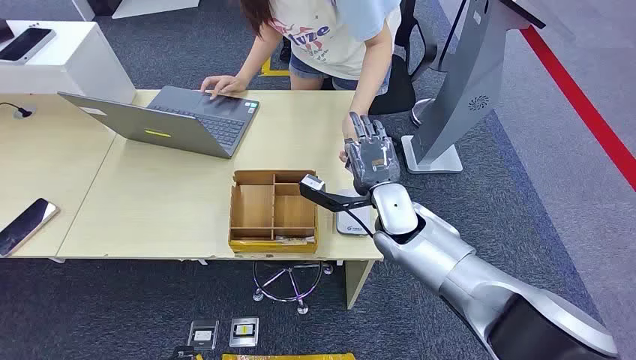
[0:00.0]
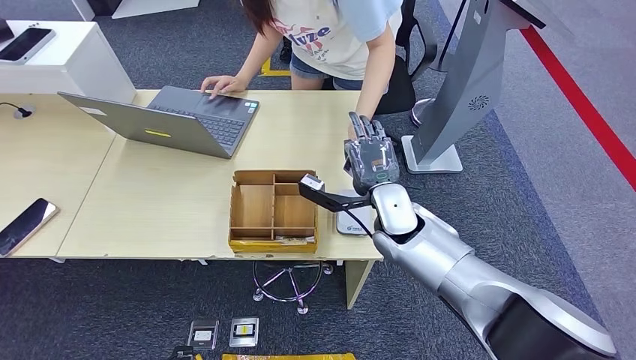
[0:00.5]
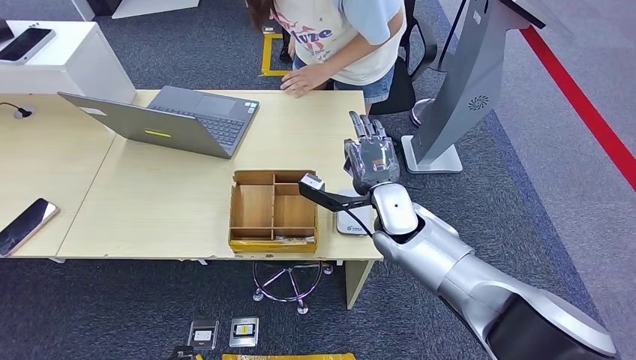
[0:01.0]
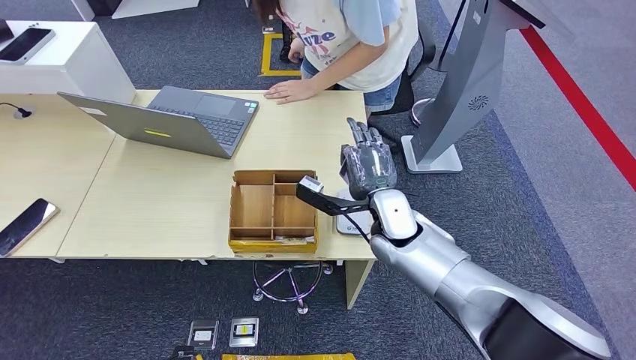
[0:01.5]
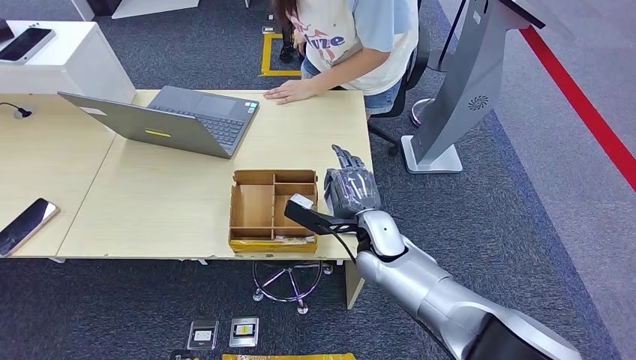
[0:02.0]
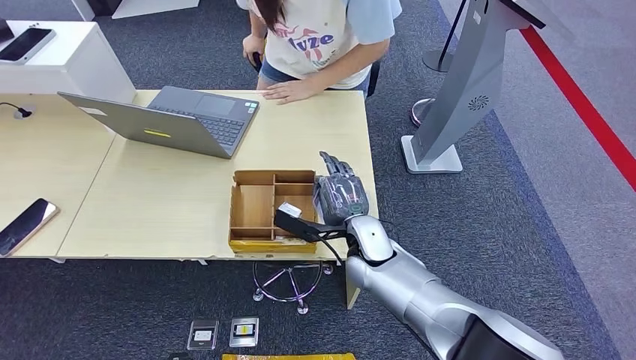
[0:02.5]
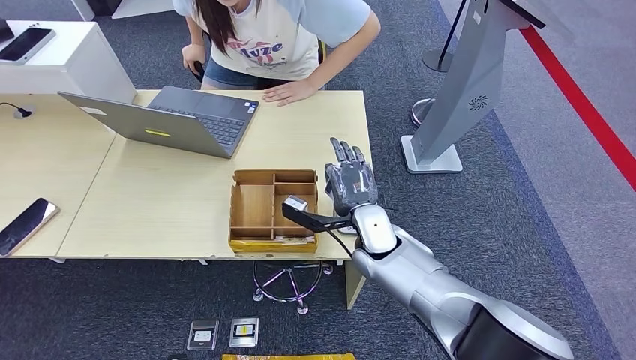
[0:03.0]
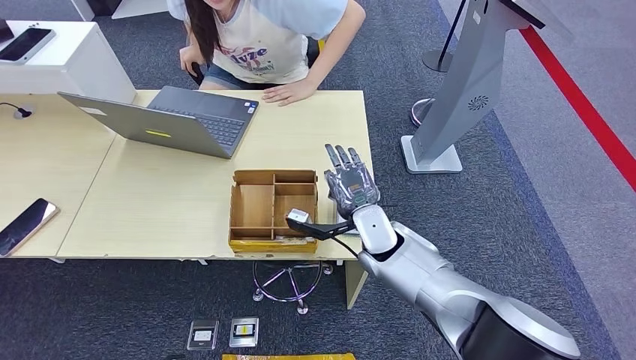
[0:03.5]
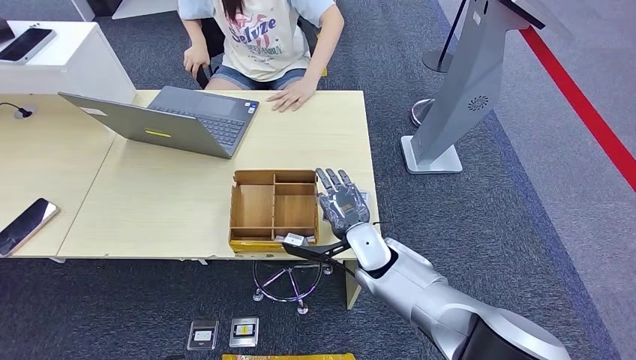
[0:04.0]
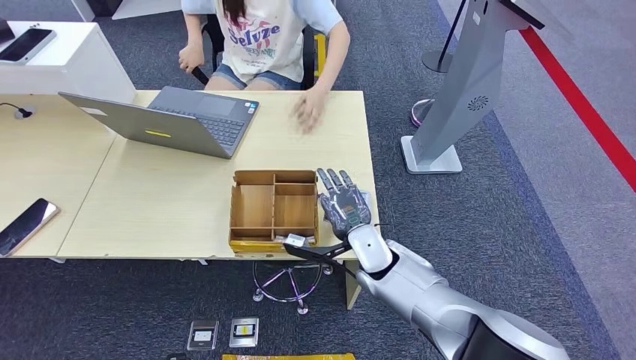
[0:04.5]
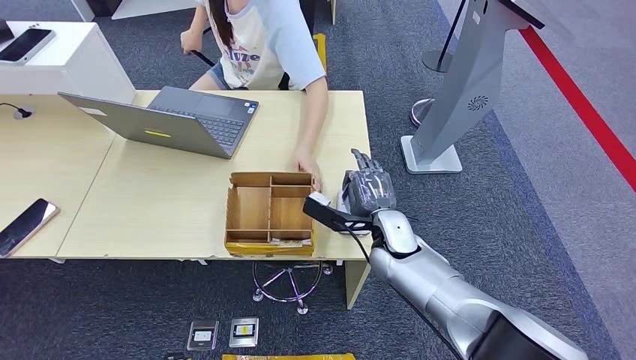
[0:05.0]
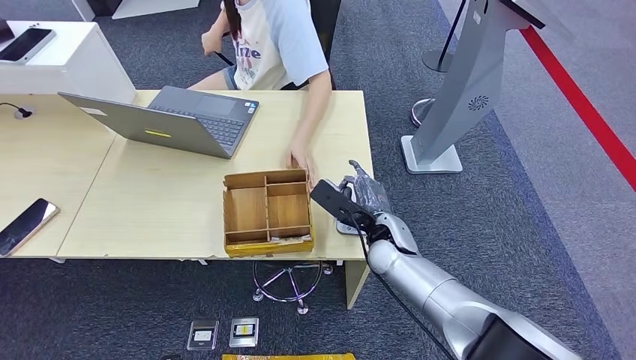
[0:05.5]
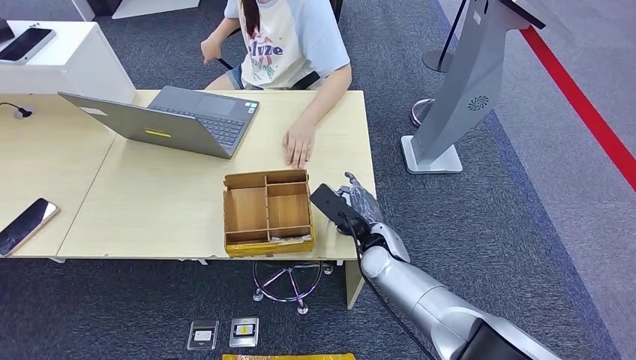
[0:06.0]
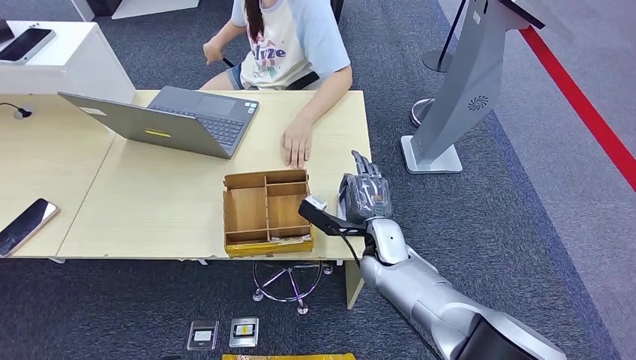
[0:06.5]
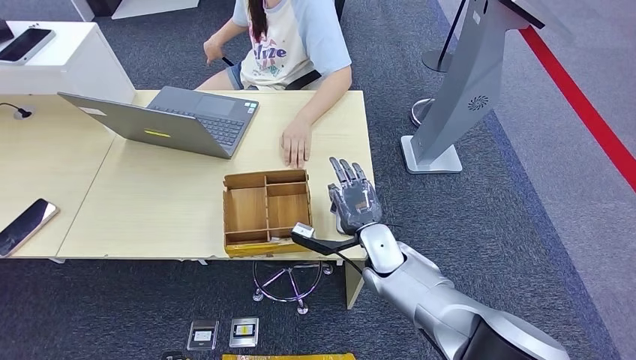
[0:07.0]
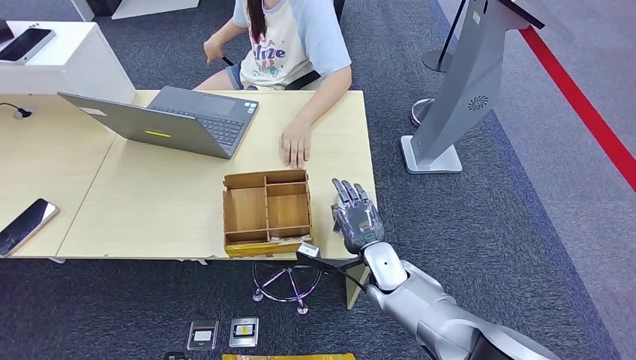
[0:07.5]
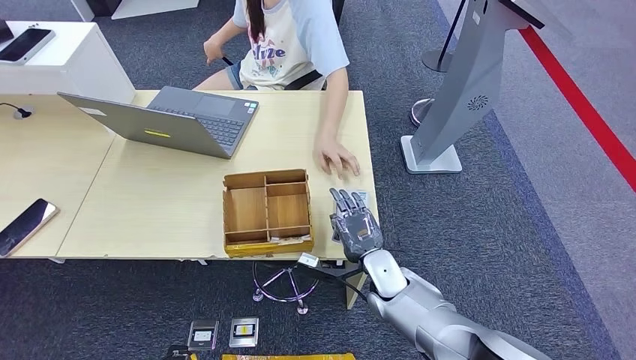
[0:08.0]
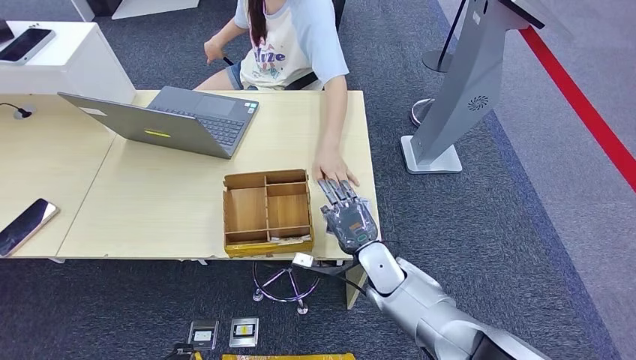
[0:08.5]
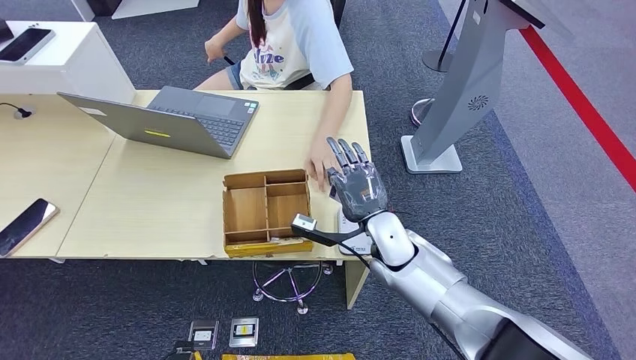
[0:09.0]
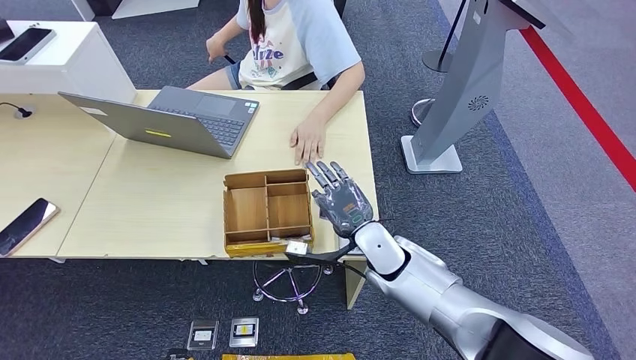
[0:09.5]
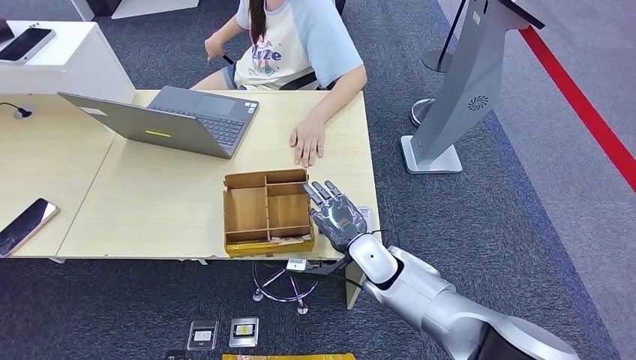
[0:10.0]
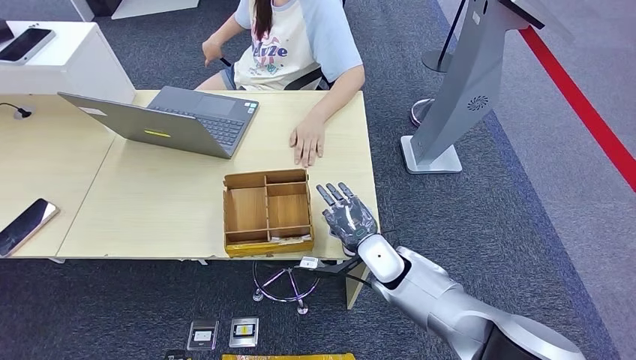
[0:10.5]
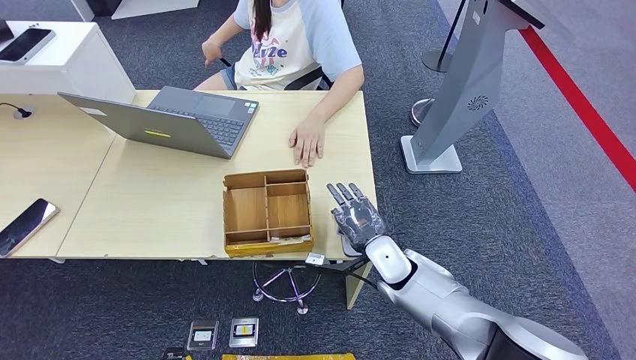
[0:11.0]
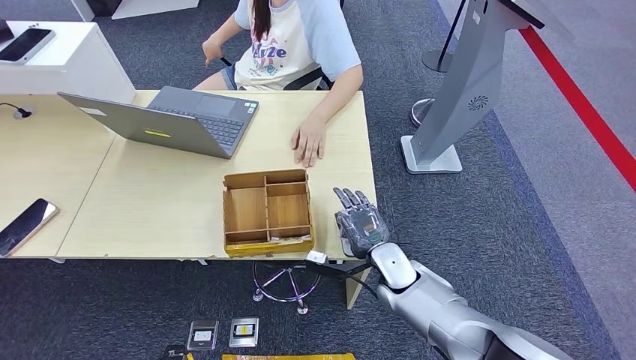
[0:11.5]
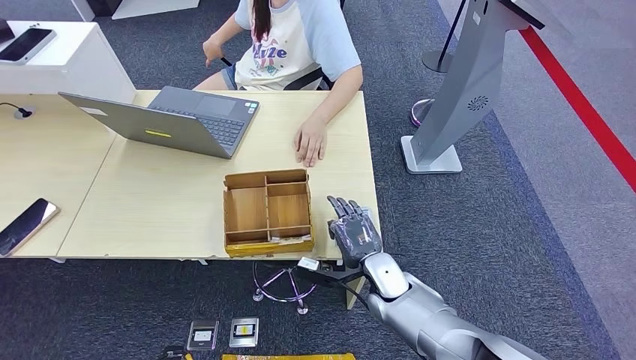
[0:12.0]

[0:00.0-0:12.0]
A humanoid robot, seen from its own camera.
Step, 0:00.0 to 0:01.0: Take the ID card from the person's hand.
Step, 0:01.5 to 0:03.5: Place the ID card on the card reader.
0:06.0 to 0:08.0: The right hand changes place by some 5 cm.
0:10.0 to 0:12.0: The right hand changes place by approximately 5 cm.

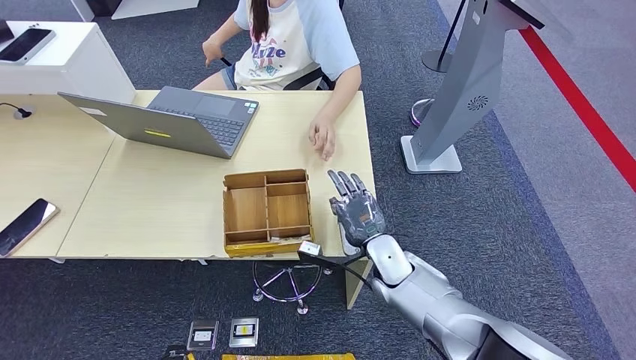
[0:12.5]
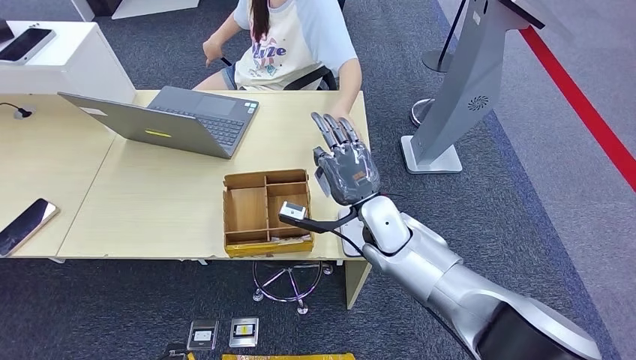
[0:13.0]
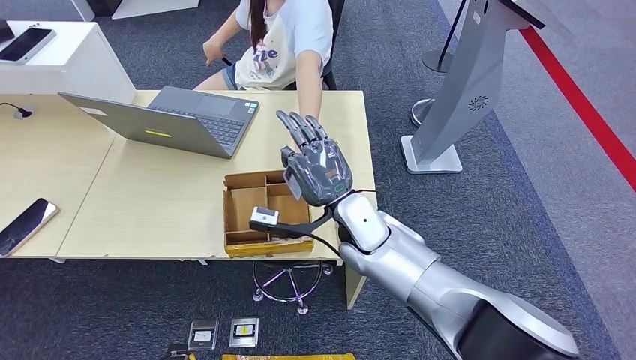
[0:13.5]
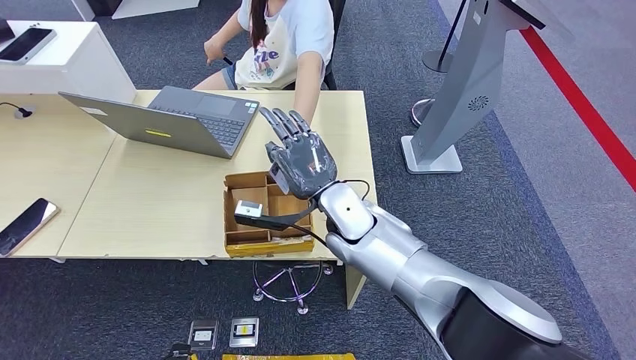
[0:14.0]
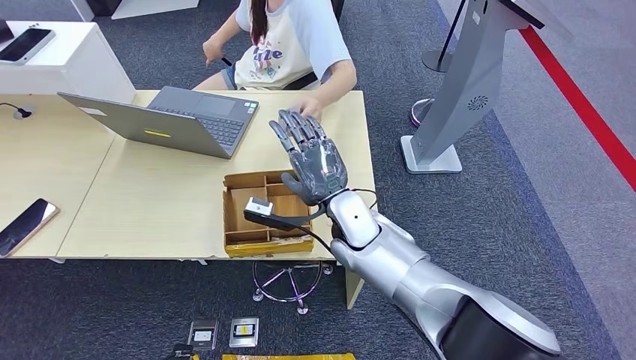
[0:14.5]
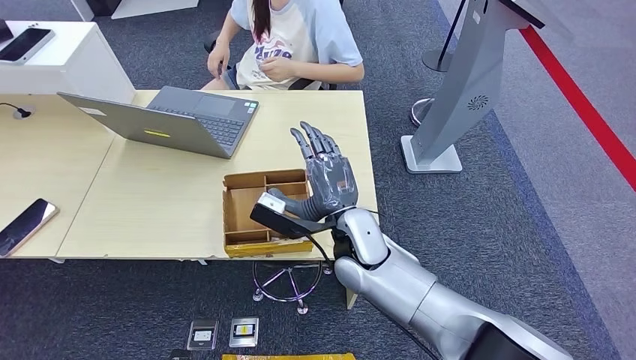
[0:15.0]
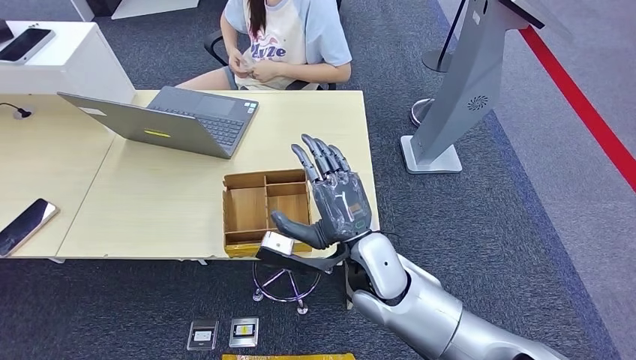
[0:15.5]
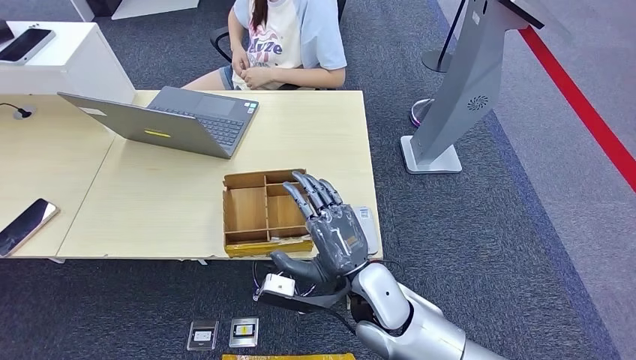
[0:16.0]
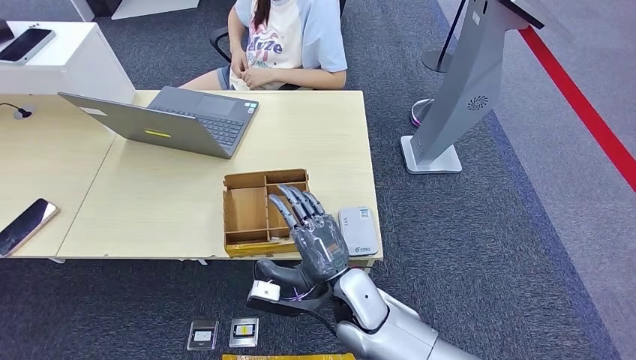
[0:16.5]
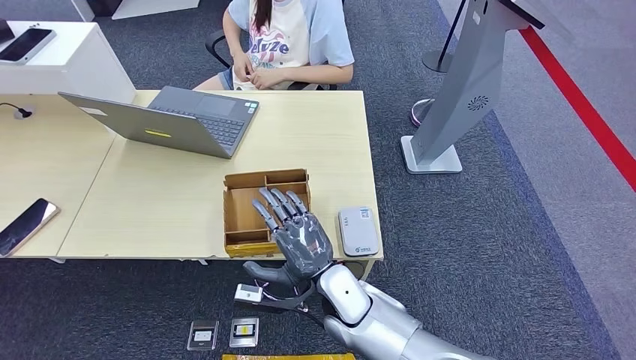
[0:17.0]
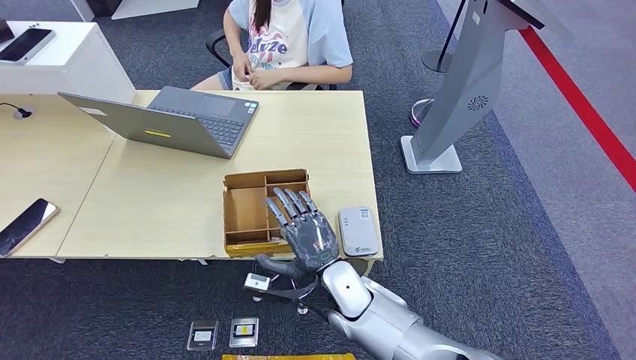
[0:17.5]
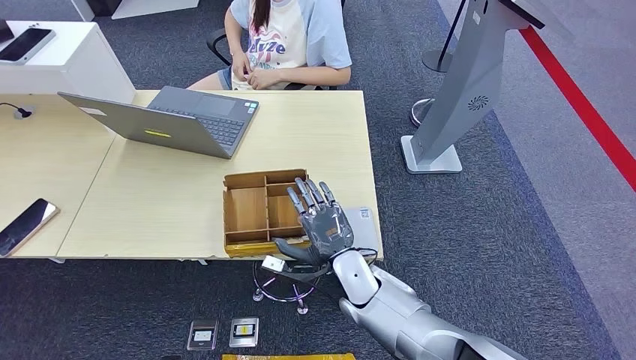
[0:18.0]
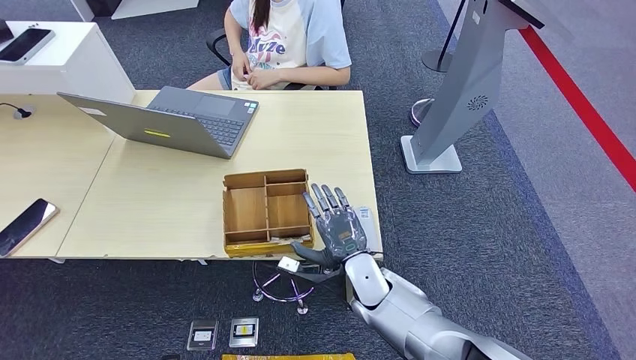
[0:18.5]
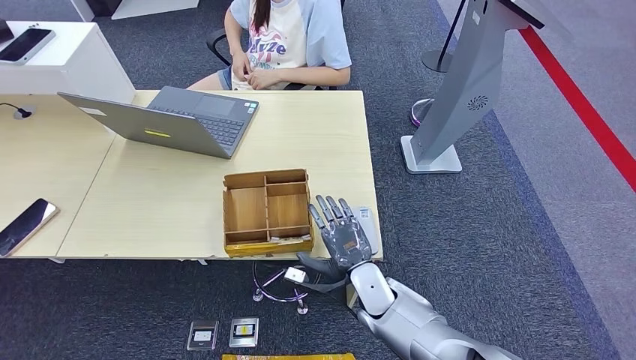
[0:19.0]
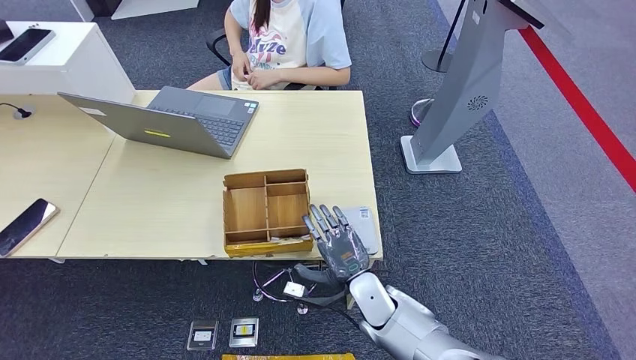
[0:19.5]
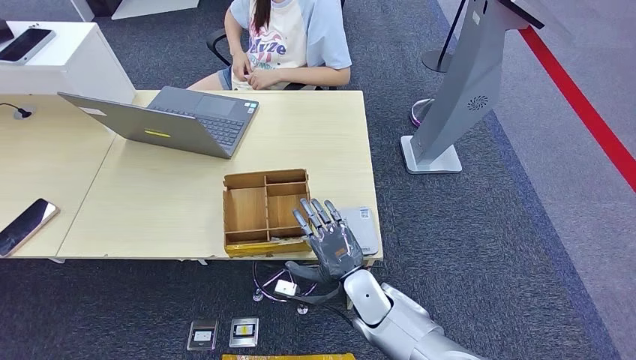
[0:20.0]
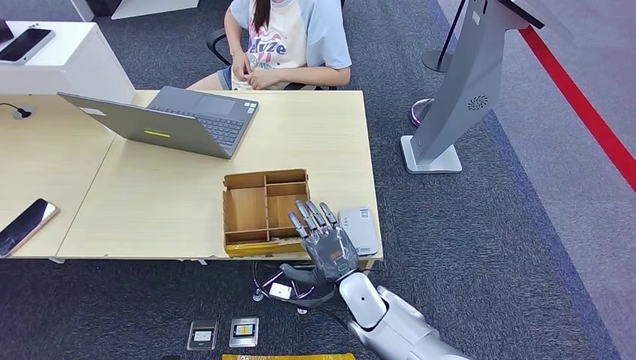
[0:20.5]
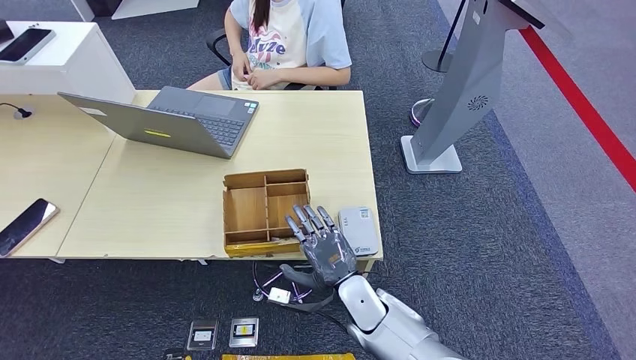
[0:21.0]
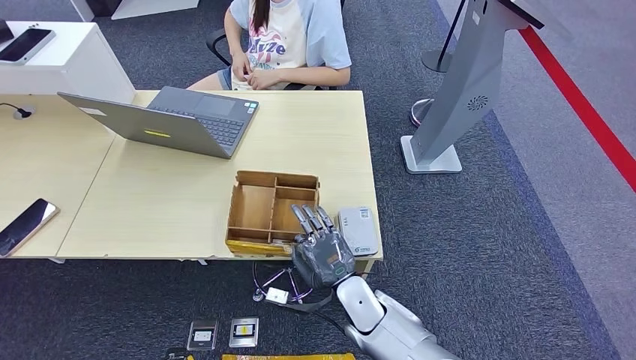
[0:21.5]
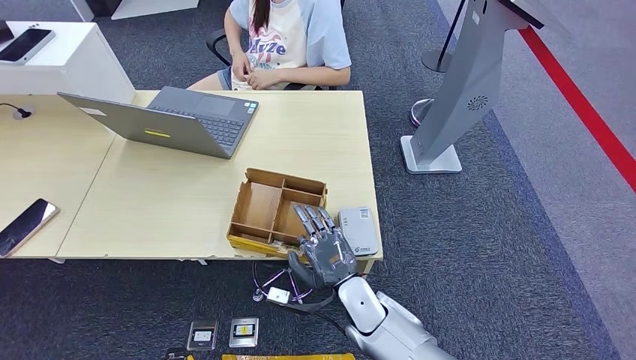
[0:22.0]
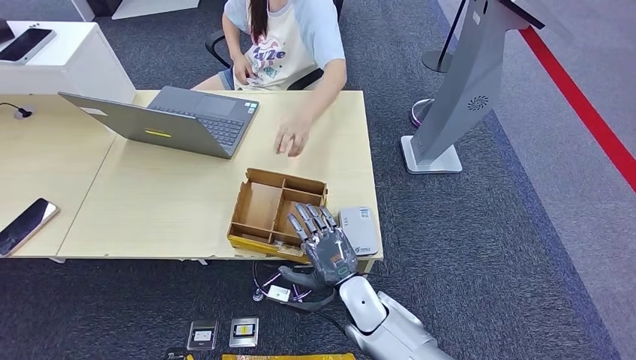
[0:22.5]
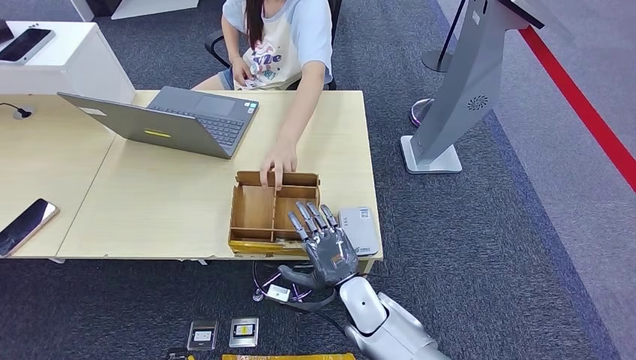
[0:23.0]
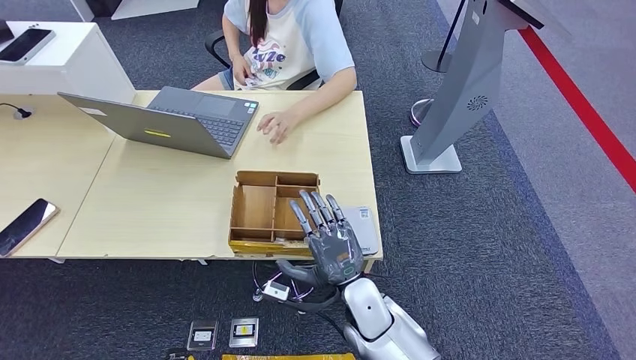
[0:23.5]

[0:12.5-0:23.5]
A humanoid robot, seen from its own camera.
Step, 0:12.5 to 0:14.5: Hand the ID card to the person.
0:12.5 to 0:14.5: The right hand moves upward and to the left, roughly 15 cm.
0:14.5 to 0:16.0: The right hand moves backward, approximately 10 cm.
0:16.0 to 0:18.0: The right hand moves downward and forward, some 10 cm.
0:20.0 to 0:23.5: The hands make only small movements.
